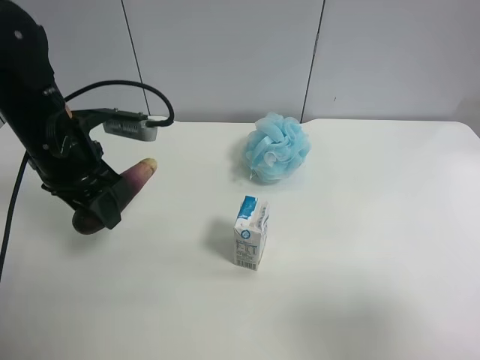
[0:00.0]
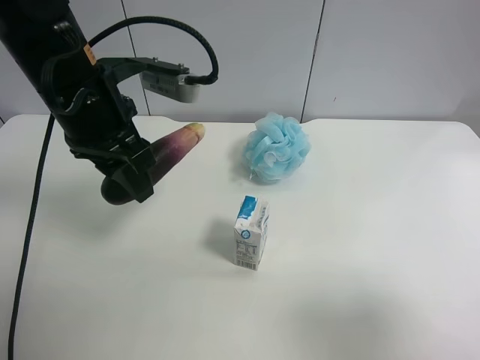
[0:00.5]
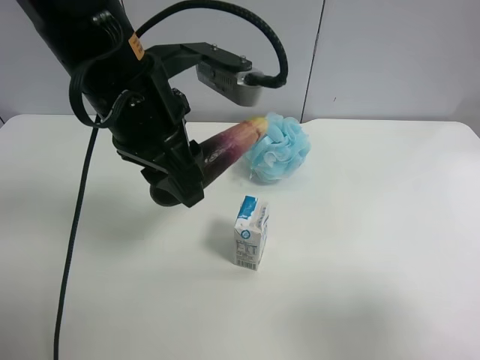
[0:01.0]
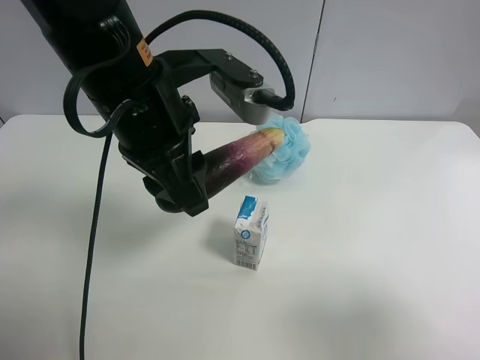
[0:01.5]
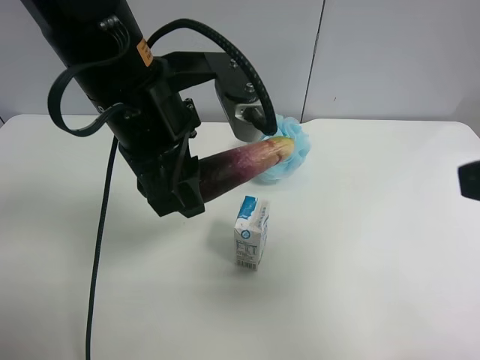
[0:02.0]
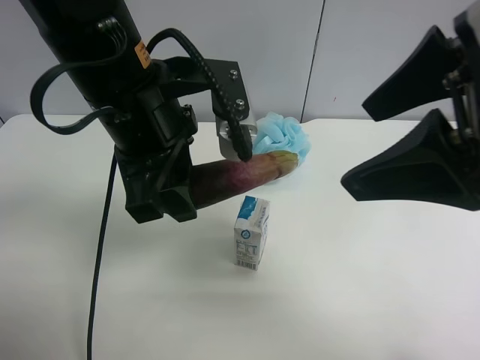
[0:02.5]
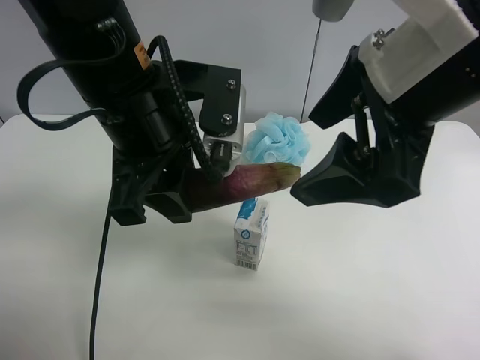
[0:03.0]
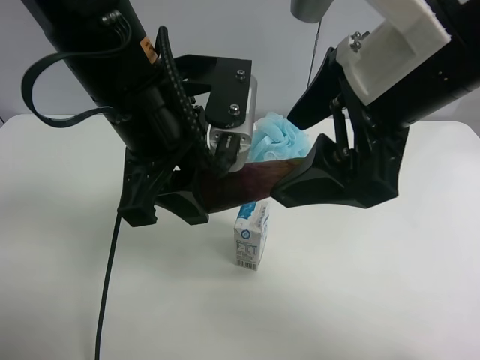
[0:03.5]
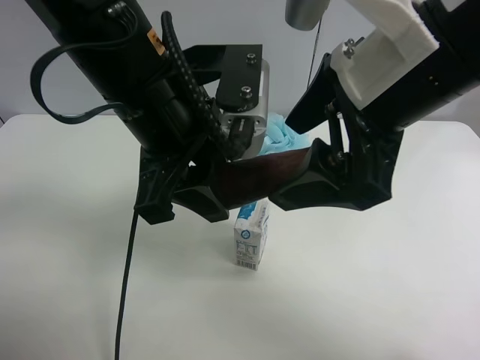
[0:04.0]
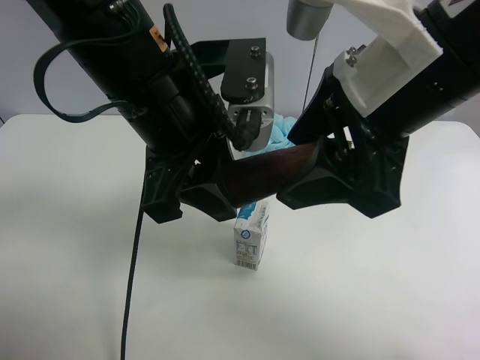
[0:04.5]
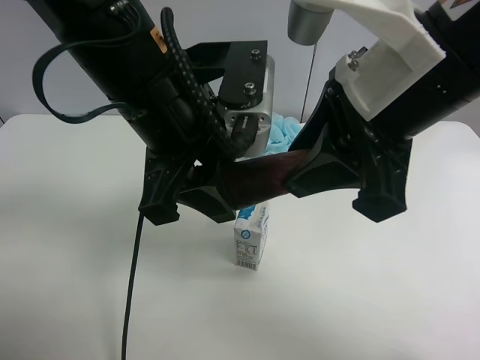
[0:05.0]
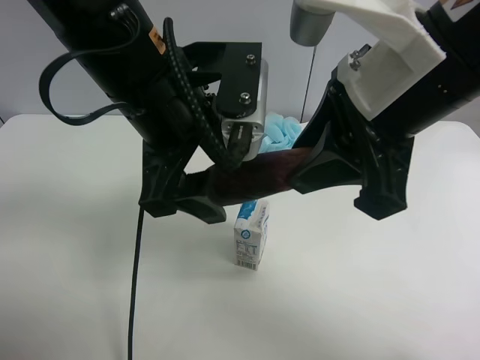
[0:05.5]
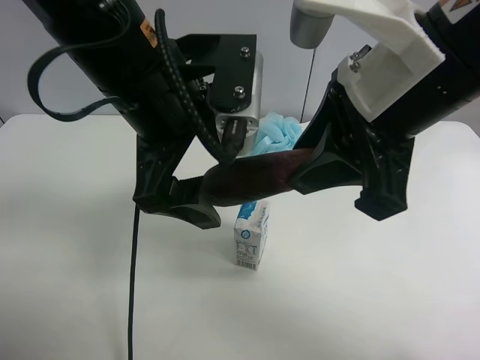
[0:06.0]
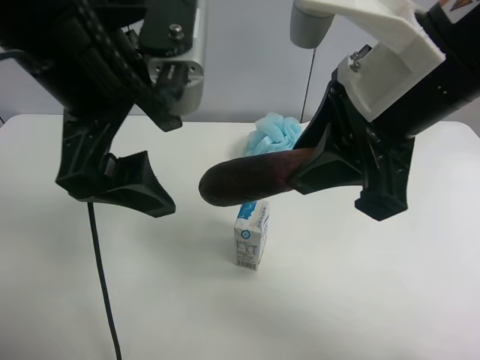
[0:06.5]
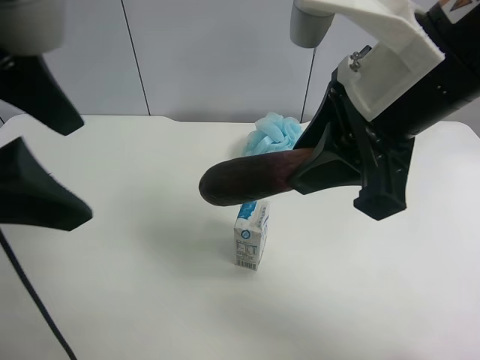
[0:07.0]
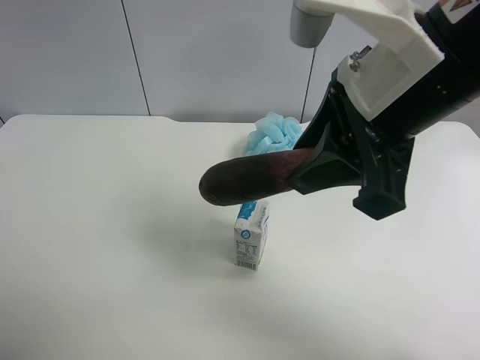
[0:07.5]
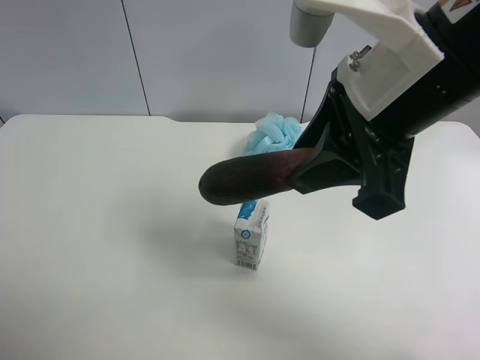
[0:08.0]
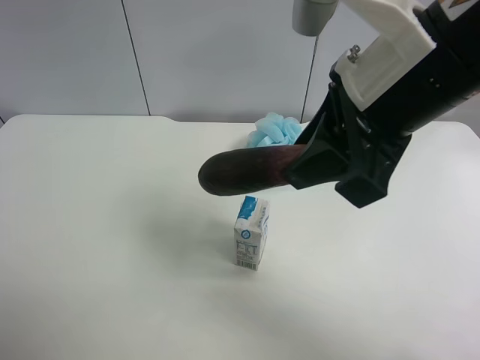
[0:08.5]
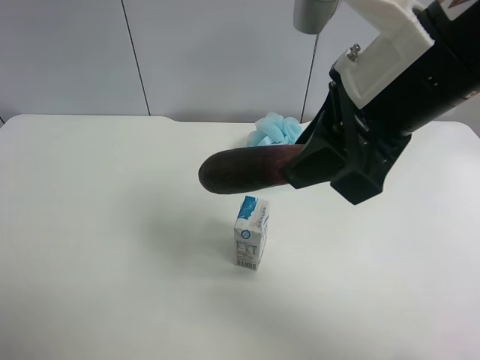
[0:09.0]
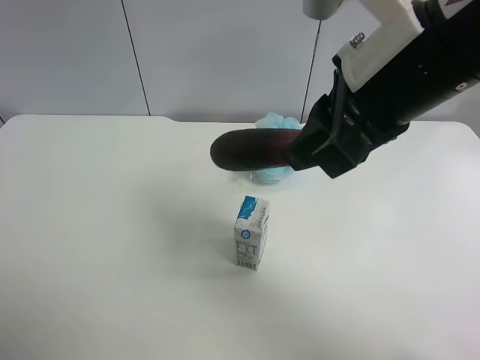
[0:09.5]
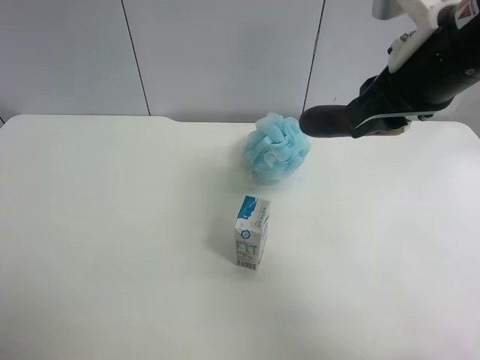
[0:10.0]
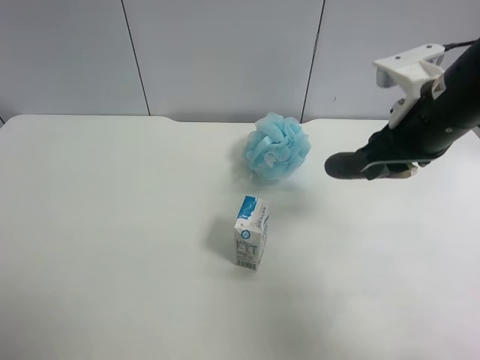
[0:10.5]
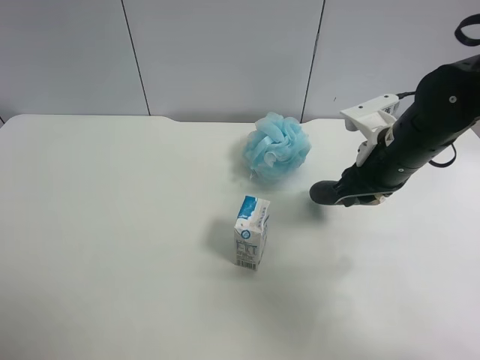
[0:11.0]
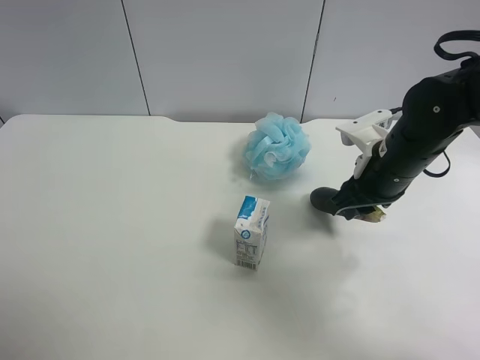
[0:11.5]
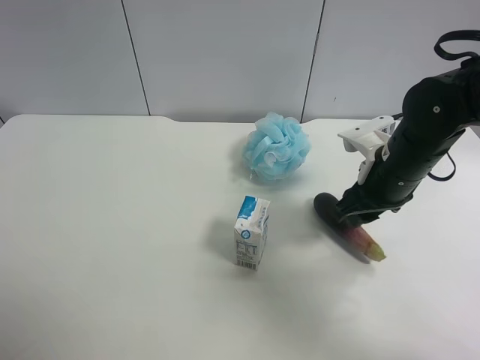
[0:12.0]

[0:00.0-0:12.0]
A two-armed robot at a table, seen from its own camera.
Task of the whole recording: use the left gripper to pick up the item and transfer it from the left gripper to the right gripper.
0:00.0 to 0:02.0: The left gripper heads to the right and upward, covering roughly 15 cm. Meanwhile the right gripper shifts some 15 cm forward, upward and to the left.
0:02.0 to 0:04.0: The right gripper moves to the left and forward, approximately 15 cm.
0:04.0 to 0:06.0: The right gripper closes up; the left gripper opens its fingers.
0:06.0 to 0:08.0: The left gripper goes roughly 30 cm to the left and backward.
0:08.0 to 0:10.0: The right gripper shifts some 10 cm forward and to the right.
0:10.0 to 0:12.0: The right gripper is displaced downward by roughly 15 cm.

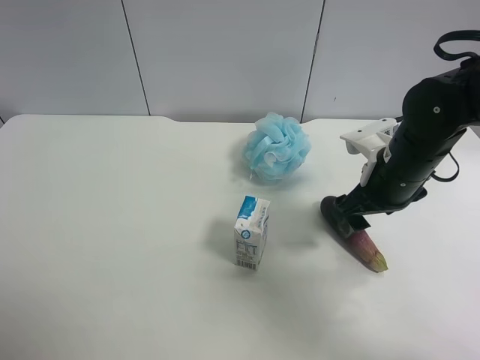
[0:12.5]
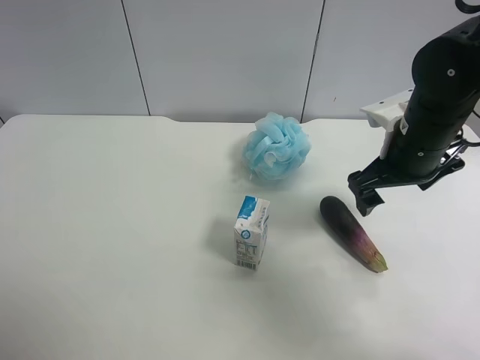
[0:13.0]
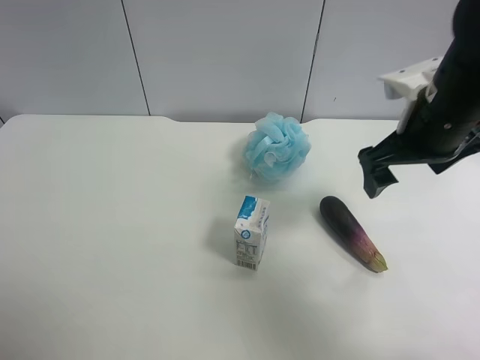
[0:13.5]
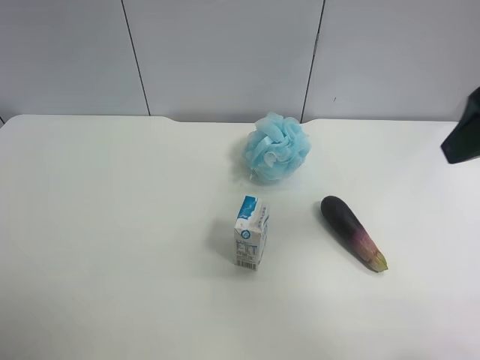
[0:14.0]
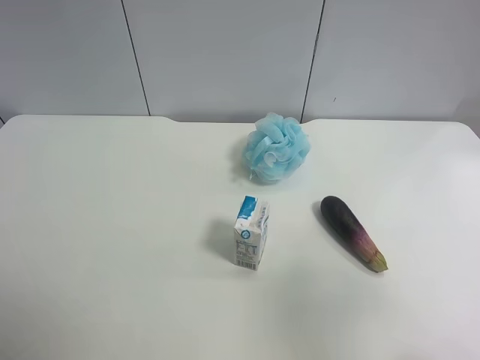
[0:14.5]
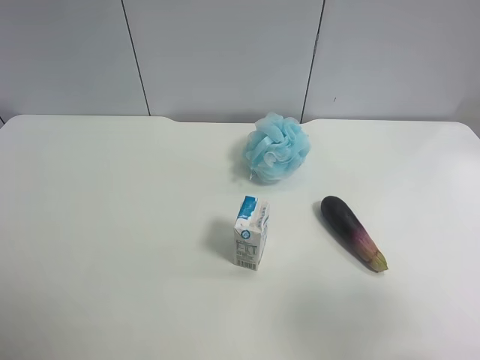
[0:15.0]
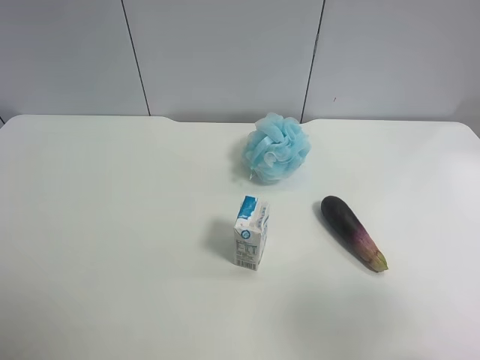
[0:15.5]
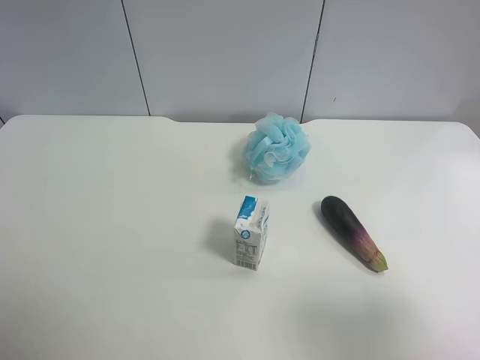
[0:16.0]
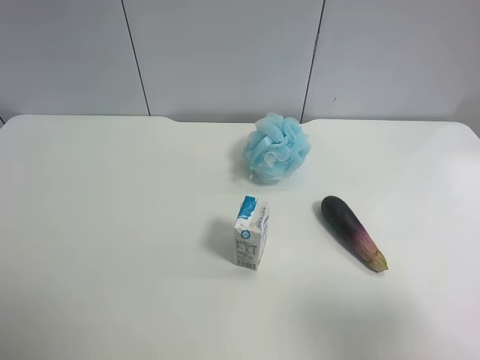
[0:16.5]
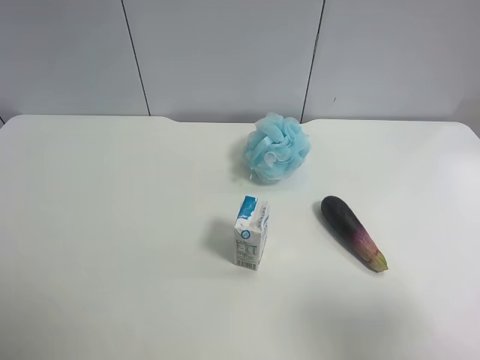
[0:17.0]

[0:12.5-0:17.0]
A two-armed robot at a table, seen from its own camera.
Task of the whole recording: use the left gripper to pick up the item and transfer it from the left gripper to the right gripper.
0:12.5 to 0:14.5: The right gripper shifts about 30 cm backward and upward.
0:14.5 to 0:17.0: The right gripper changes place by some 5 cm.
